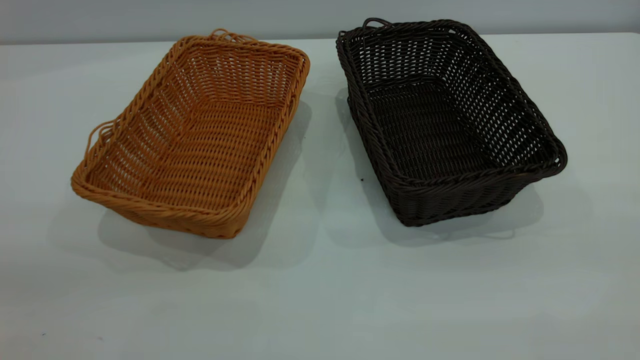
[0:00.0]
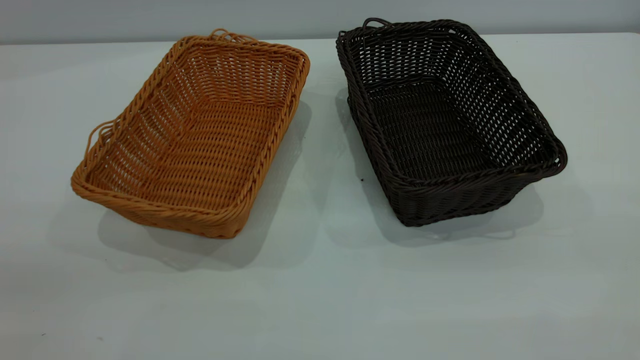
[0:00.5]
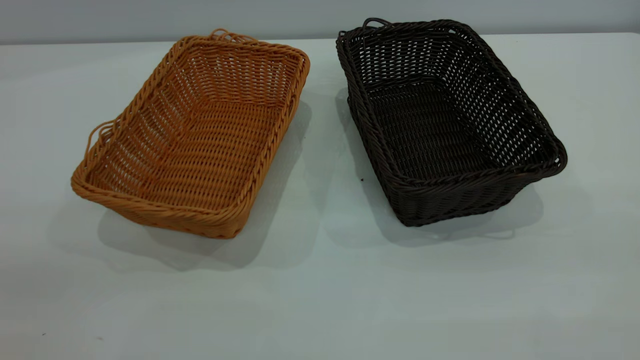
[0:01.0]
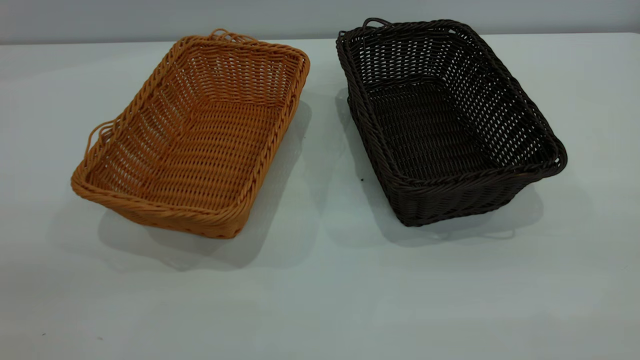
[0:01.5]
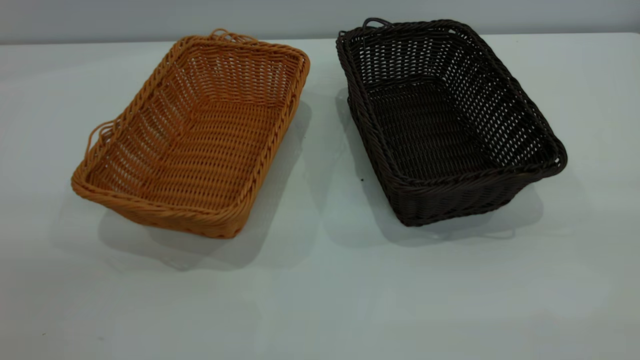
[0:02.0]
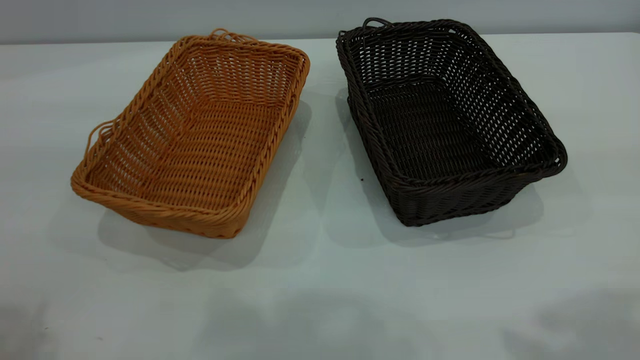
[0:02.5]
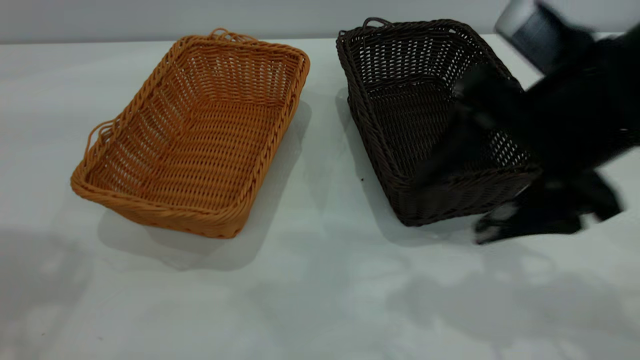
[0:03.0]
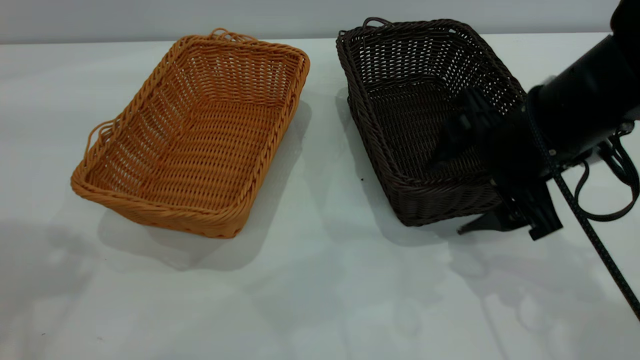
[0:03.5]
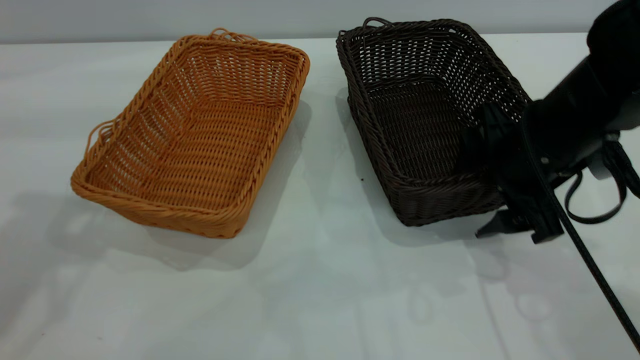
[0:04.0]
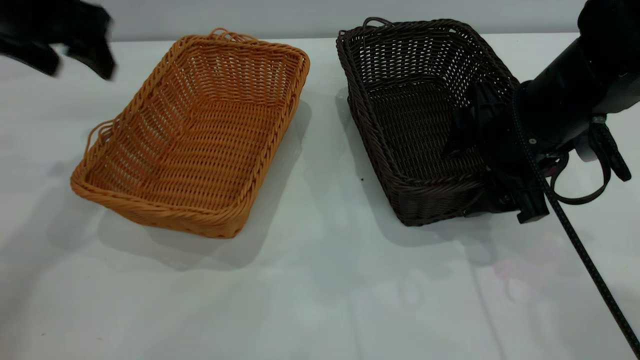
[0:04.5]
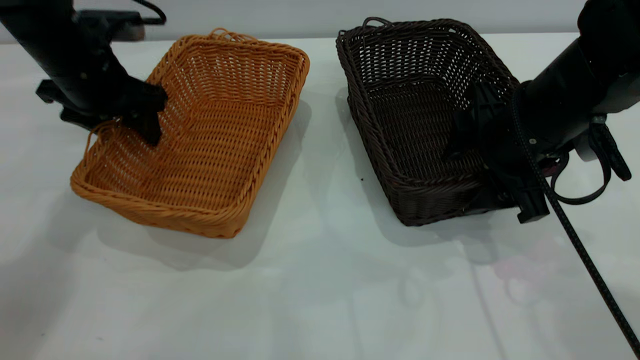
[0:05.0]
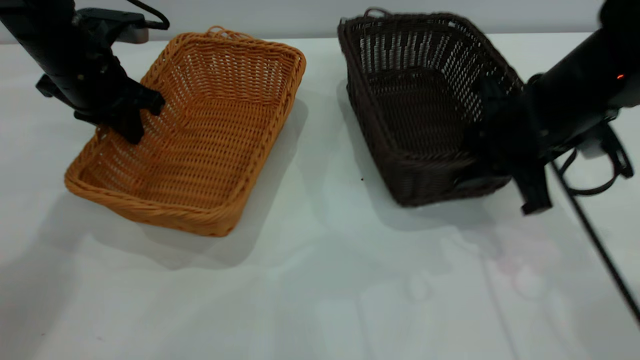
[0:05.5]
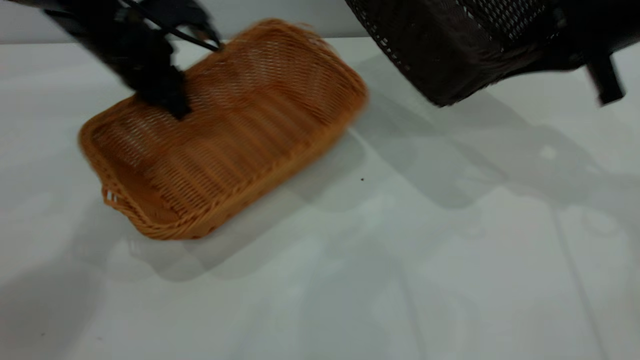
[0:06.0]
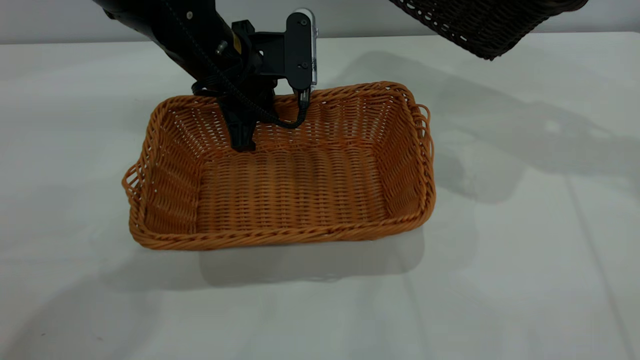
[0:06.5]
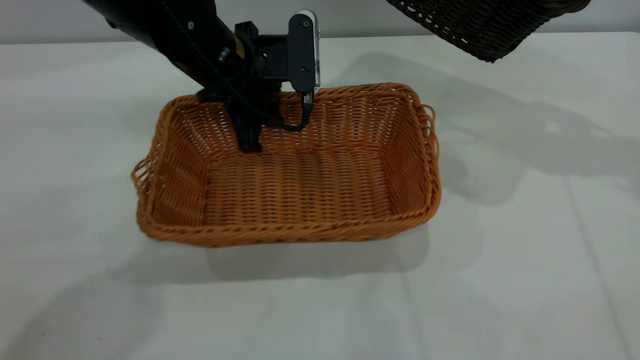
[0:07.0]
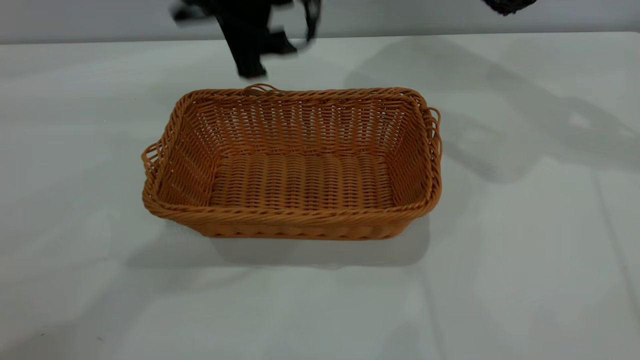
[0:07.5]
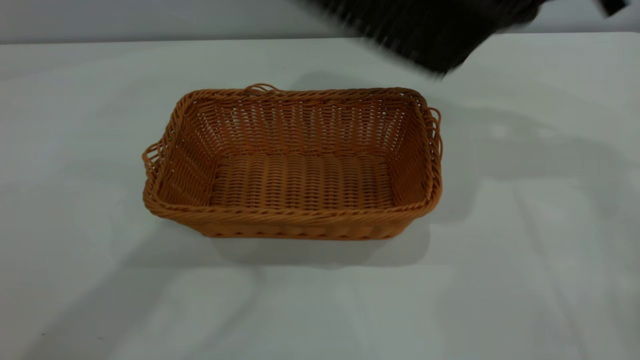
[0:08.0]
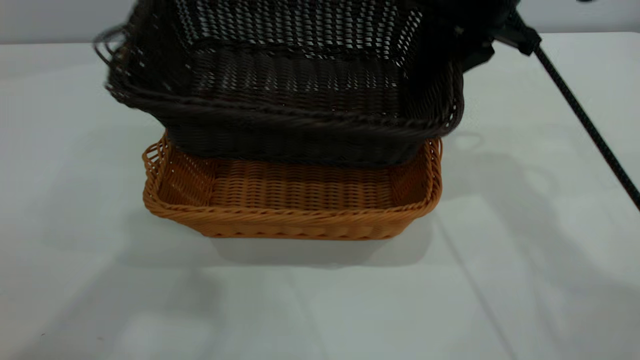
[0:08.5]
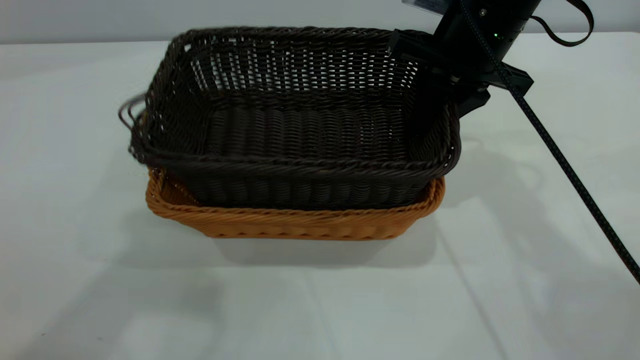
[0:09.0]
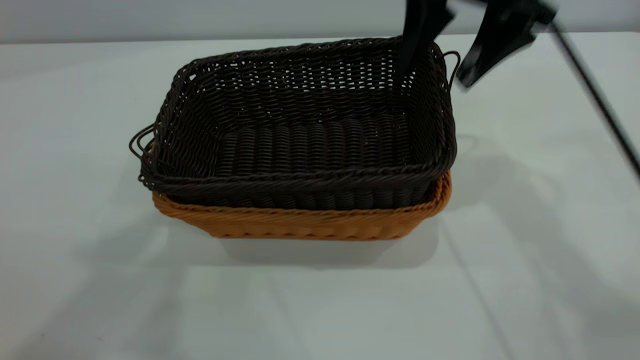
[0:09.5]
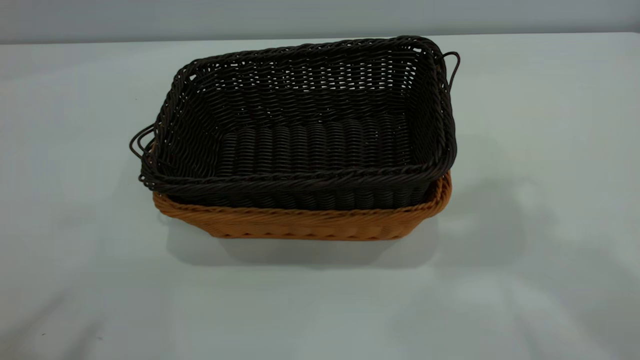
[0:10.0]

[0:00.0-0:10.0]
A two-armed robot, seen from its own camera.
Task of the whole recording: the left gripper grasp the brown basket and place it in the center of the table, the right gripper grasp the black basket and place it inside the brown one.
Step, 0:00.0 to 0:05.5: Pick up the light basket with the right gripper.
Step, 0:06.0 to 0:07.0: Place the light-colored basket in the center.
Step, 0:07.5 to 0:09.5: Place the dark basket on top of the light basket.
0:02.0 to 0:04.0: The right gripper heads forward and downward, covering roughly 40 cm.
0:04.0 to 0:06.0: The right gripper moves upward, to the right and forward, approximately 15 cm, and closes. Meanwhile the left gripper moves downward, forward and to the right, some 25 cm, and closes its fingers.
0:06.0 to 0:08.0: The left gripper is displaced upward and backward by approximately 35 cm, and opens its fingers. Meanwhile the right gripper shifts approximately 10 cm to the left and upward.
0:08.0 to 0:10.0: The right gripper is displaced upward and backward by approximately 30 cm, and opens, while the left gripper travels backward and to the left by roughly 20 cm.

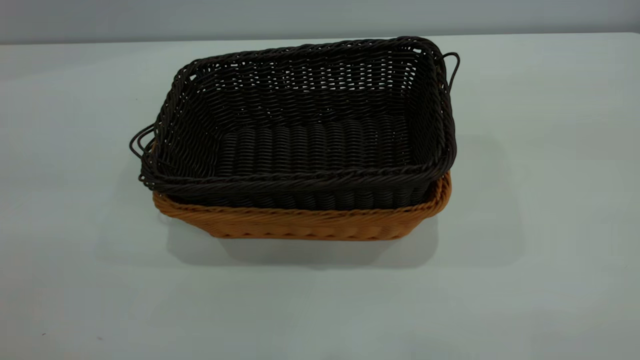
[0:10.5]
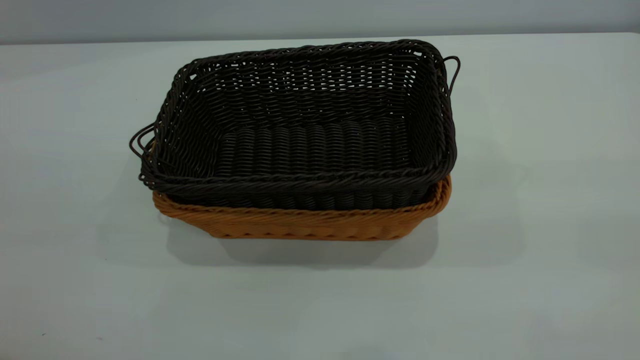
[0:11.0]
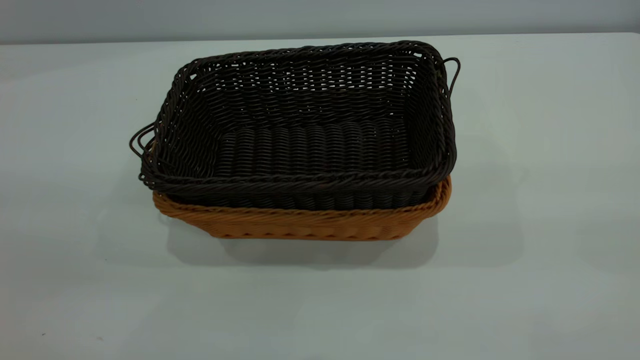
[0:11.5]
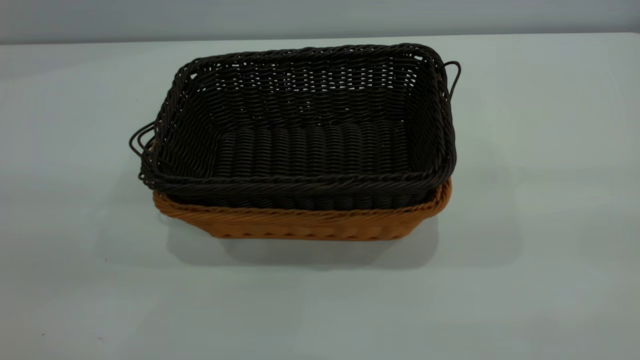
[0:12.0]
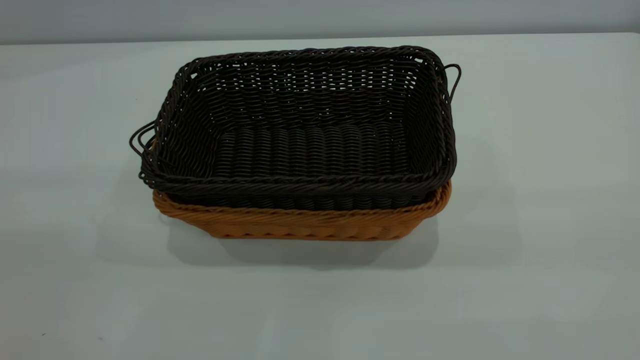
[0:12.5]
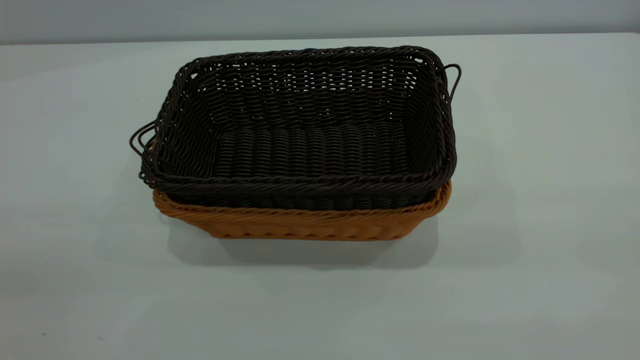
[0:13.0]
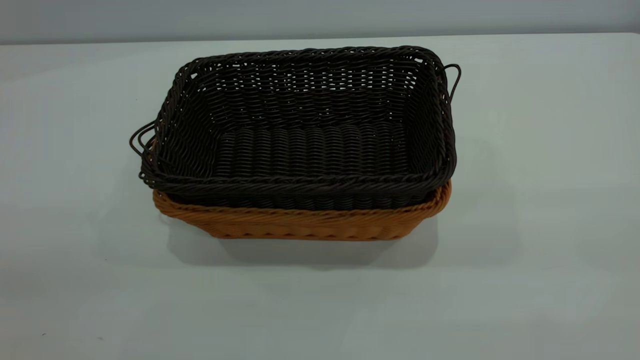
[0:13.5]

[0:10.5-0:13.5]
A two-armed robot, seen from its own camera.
Task of the whole recording: the left gripper grasp the brown basket and place it in the center of the table, the right gripper grasp the black basket and place it inside the brown one.
0:10.5 to 0:12.0: The grippers both shift downward by about 15 cm.
